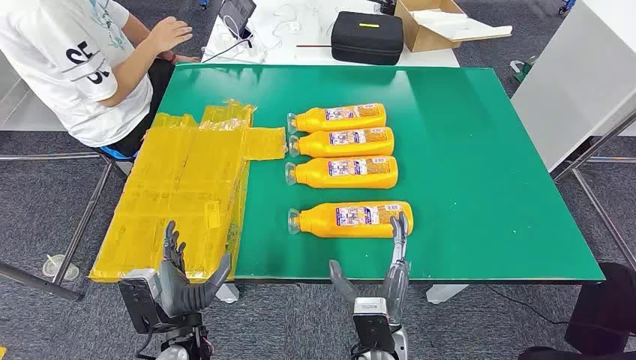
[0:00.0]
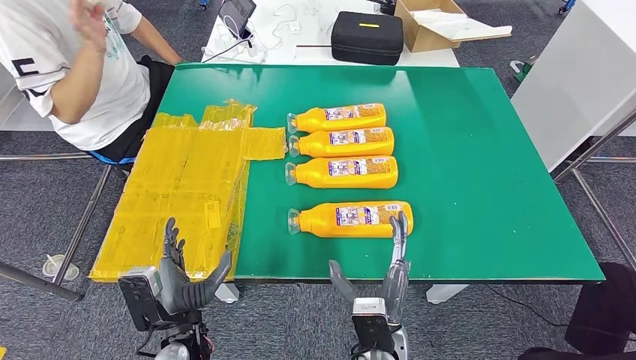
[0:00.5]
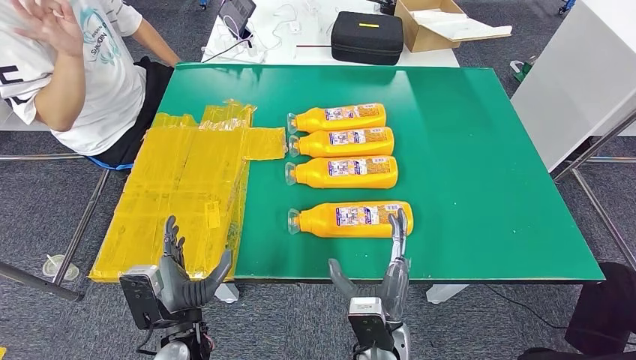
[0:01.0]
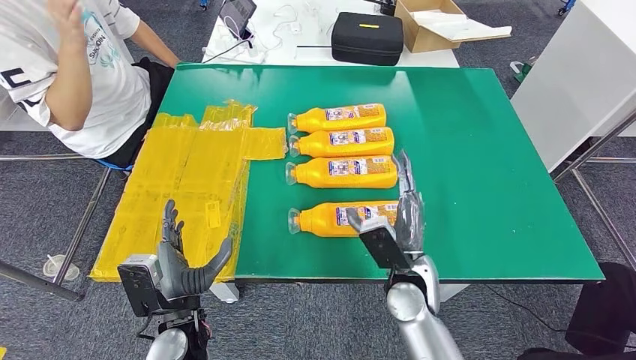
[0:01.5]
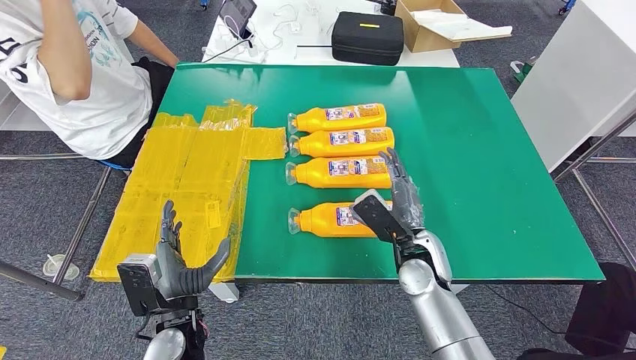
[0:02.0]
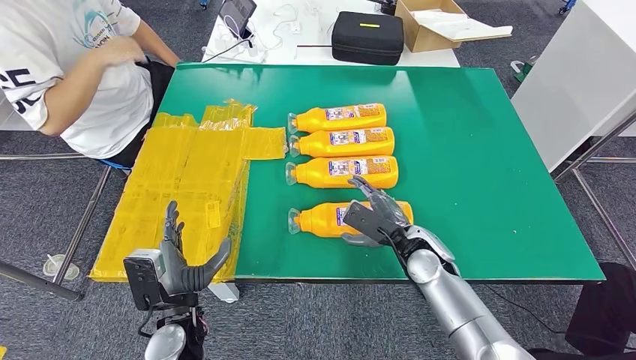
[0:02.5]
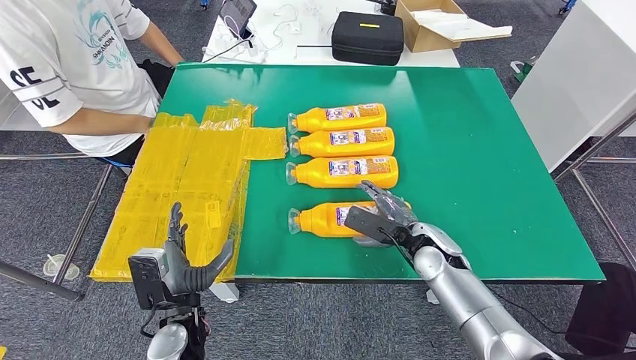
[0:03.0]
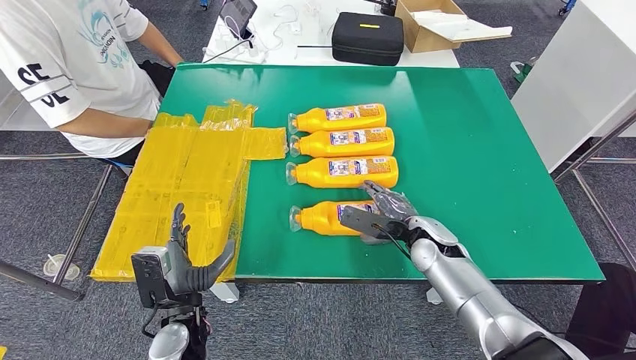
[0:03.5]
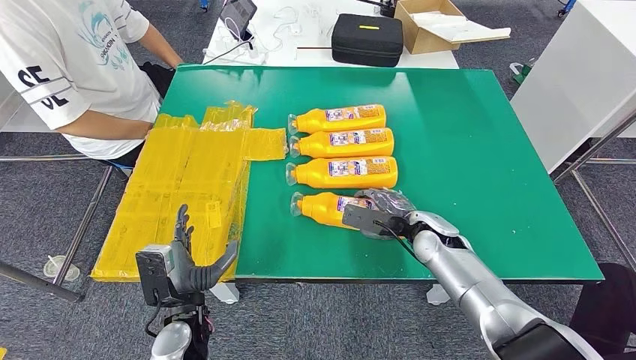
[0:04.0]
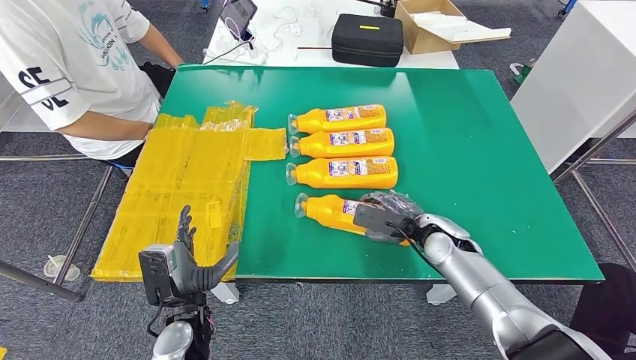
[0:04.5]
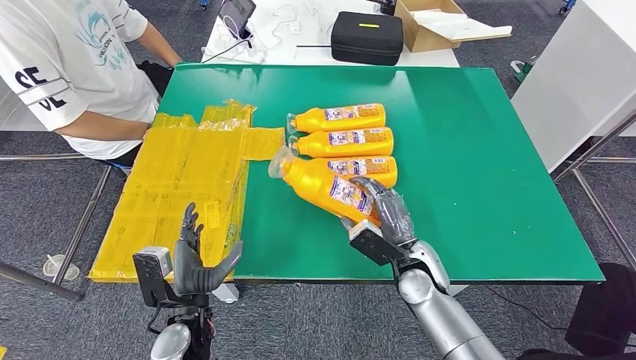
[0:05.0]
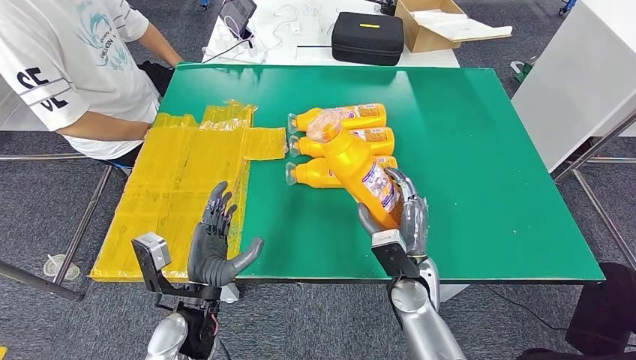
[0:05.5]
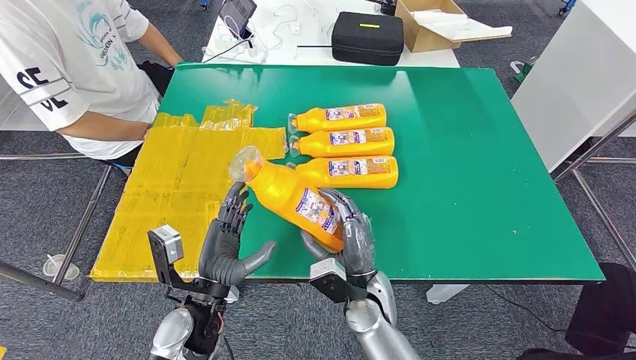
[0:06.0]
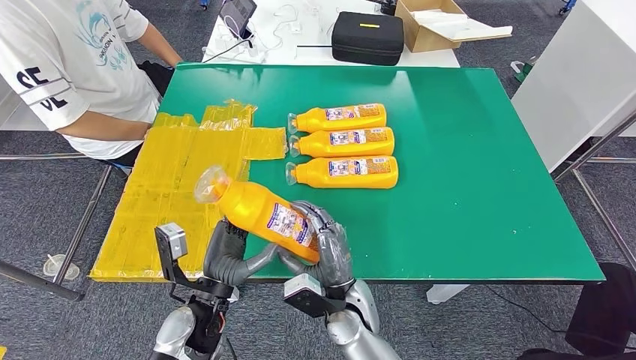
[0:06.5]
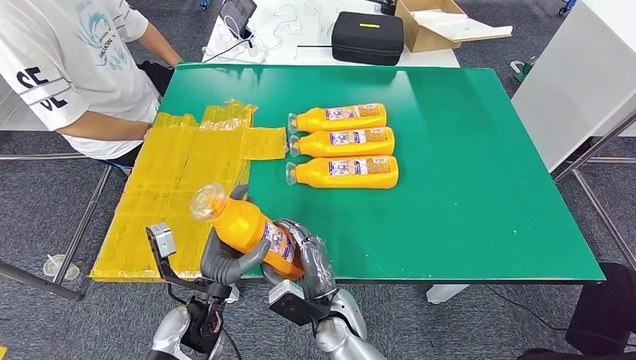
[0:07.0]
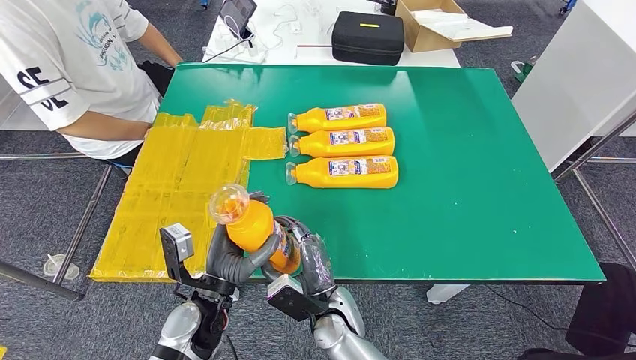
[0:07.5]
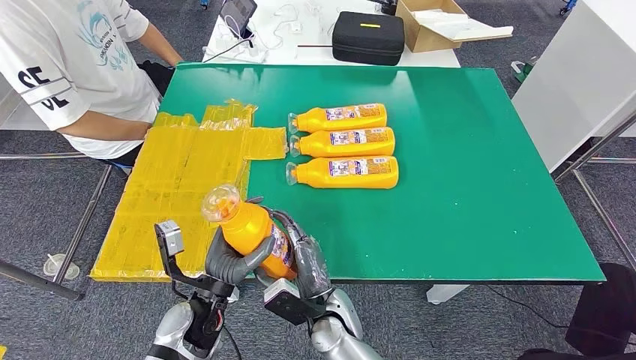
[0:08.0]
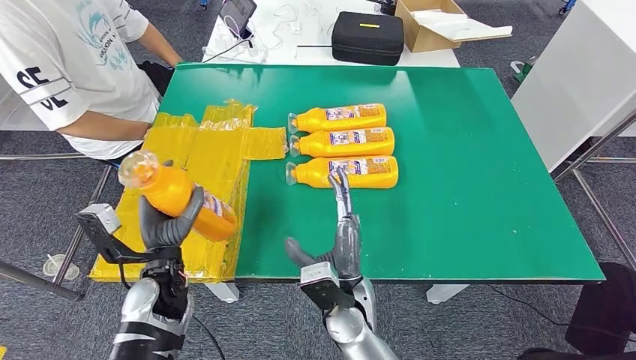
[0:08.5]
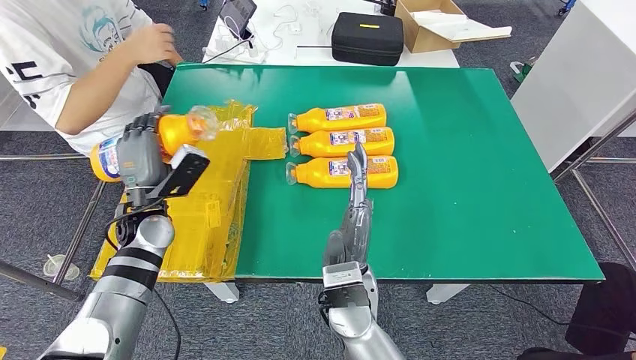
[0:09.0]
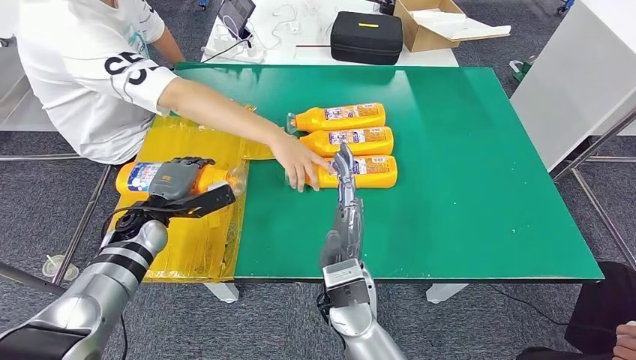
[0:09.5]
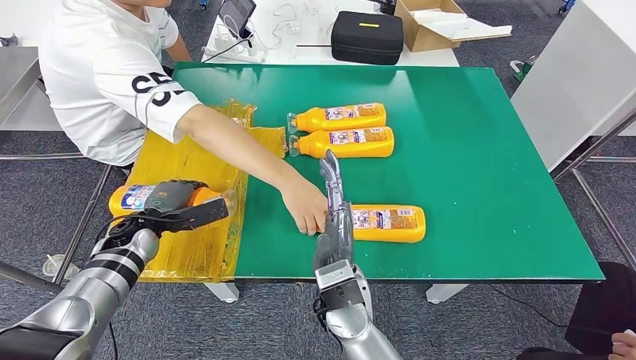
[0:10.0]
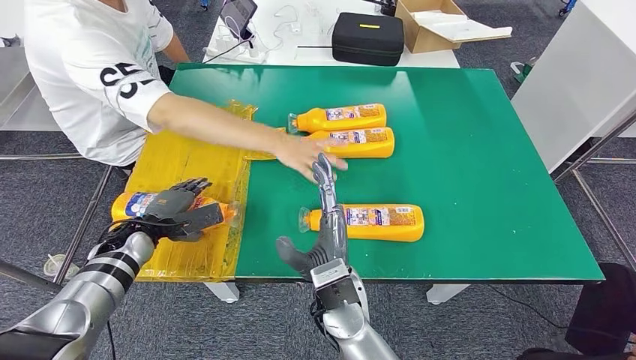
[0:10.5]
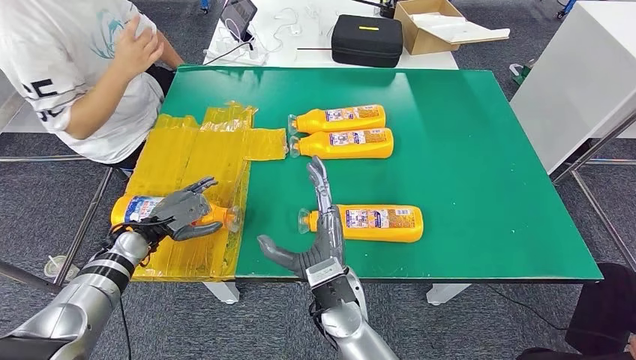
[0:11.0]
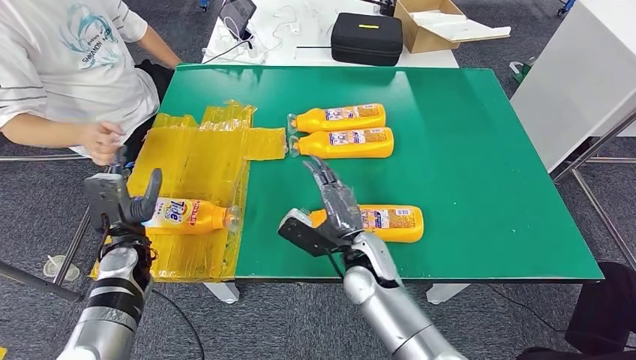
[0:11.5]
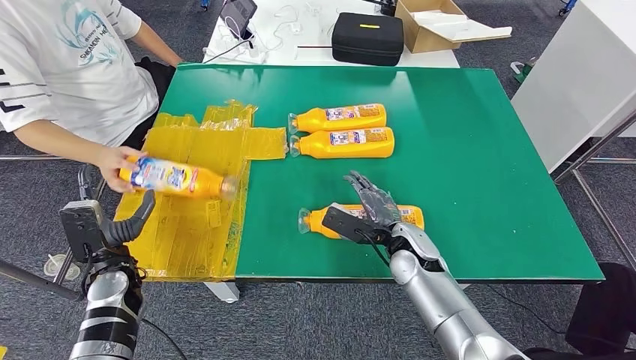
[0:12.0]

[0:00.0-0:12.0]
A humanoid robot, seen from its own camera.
Step, 0:00.0 to 0:07.0: Take the fast-moving consumer goods bottle from the table.
Step, 0:07.5 to 0:10.5: Flip the fast-moving consumer goods bottle to the front side.
0:02.0 to 0:04.0: The right hand is displaced forward and to the right by some 5 cm.
0:04.0 to 0:06.0: The right hand is displaced to the left and backward by some 20 cm; the left hand ends up some 5 cm from where it was.
0:06.0 to 0:08.0: The right hand travels to the left by approximately 5 cm.

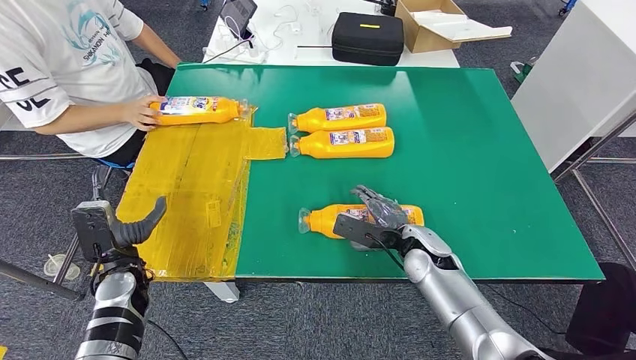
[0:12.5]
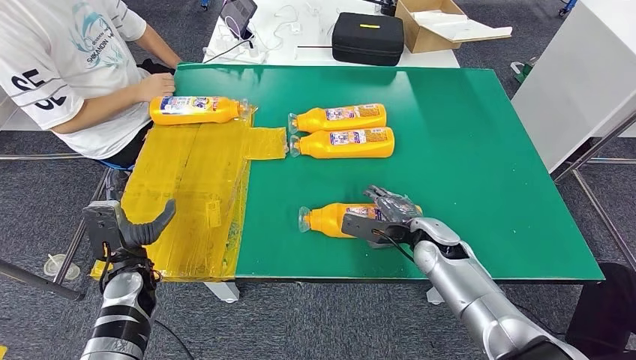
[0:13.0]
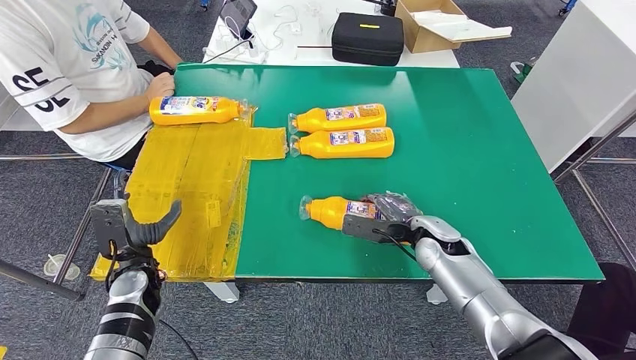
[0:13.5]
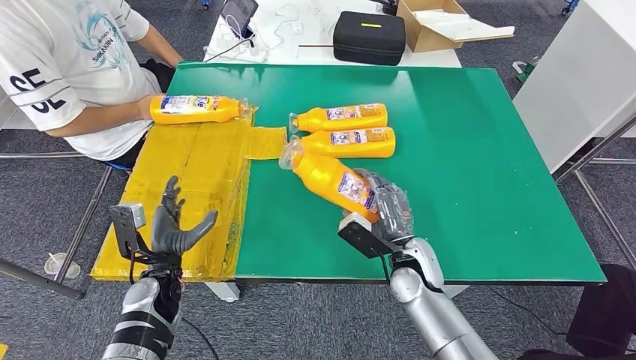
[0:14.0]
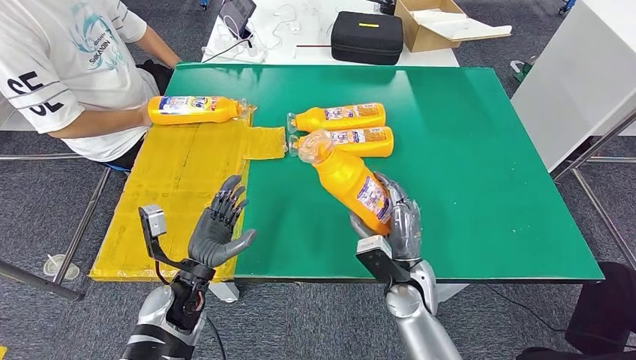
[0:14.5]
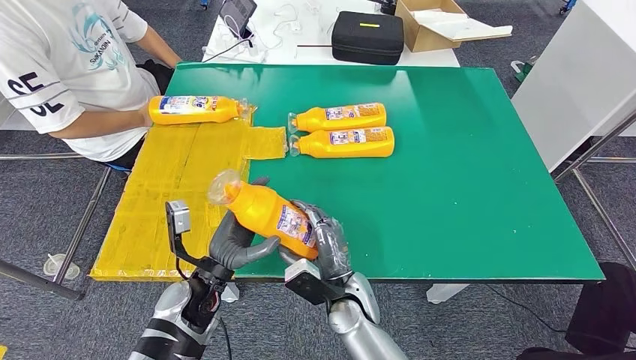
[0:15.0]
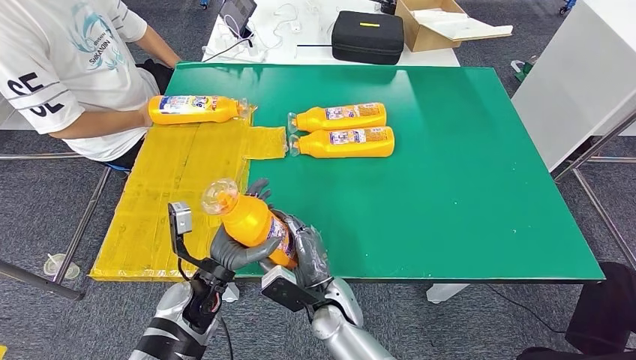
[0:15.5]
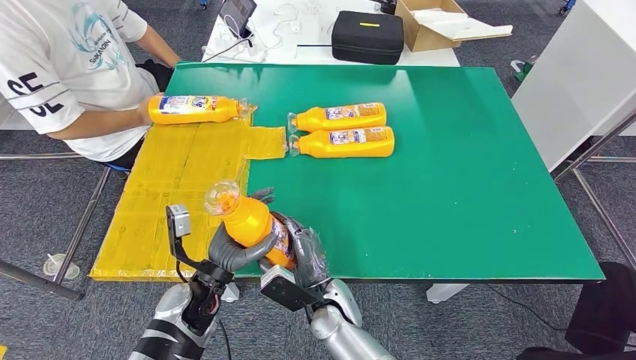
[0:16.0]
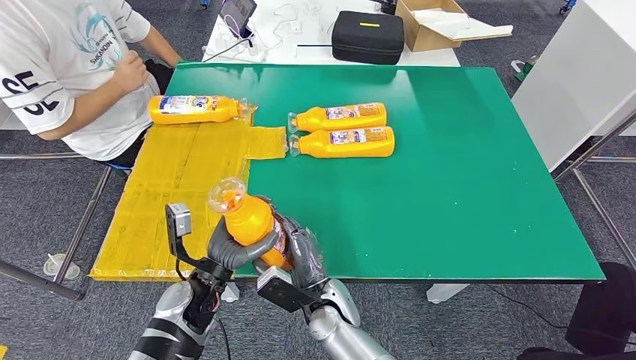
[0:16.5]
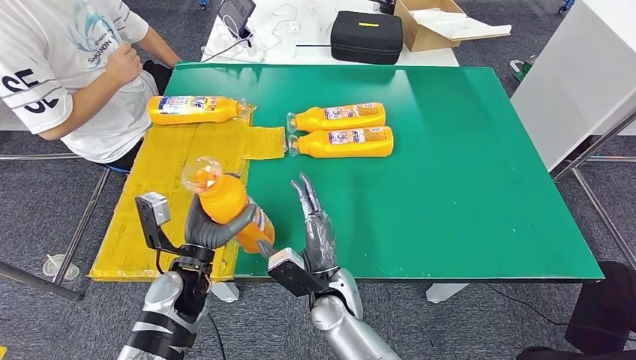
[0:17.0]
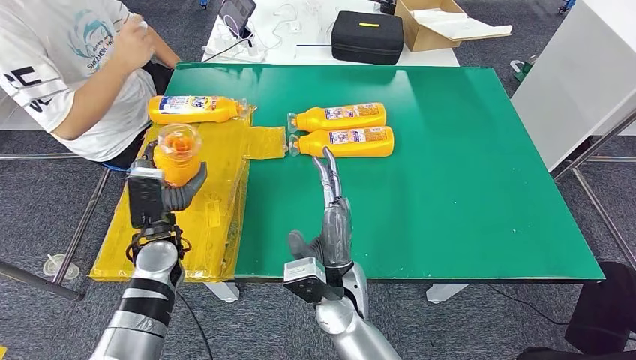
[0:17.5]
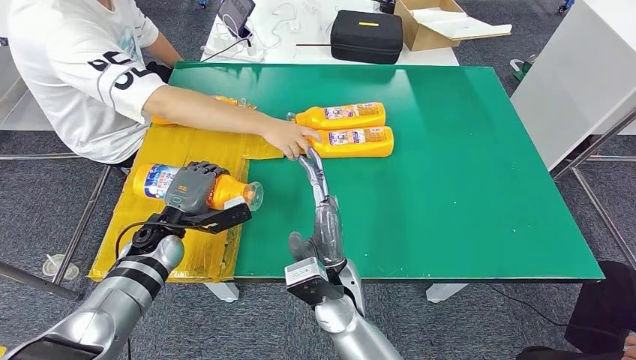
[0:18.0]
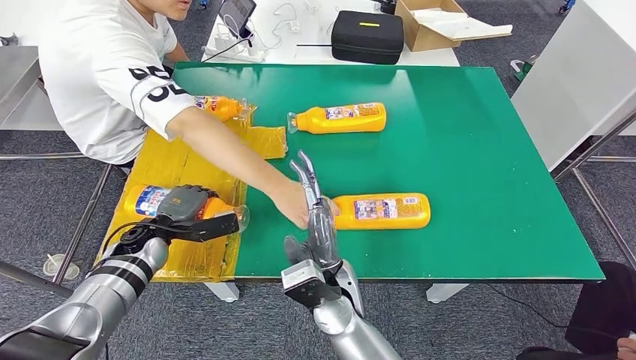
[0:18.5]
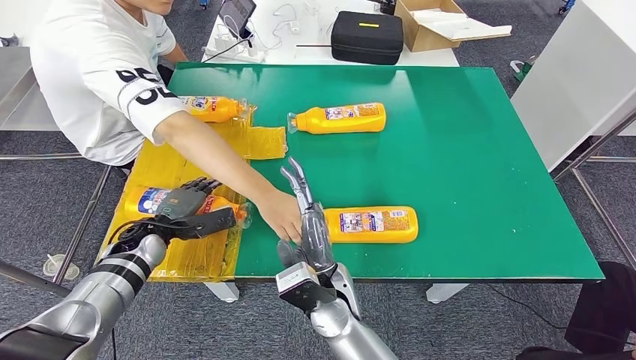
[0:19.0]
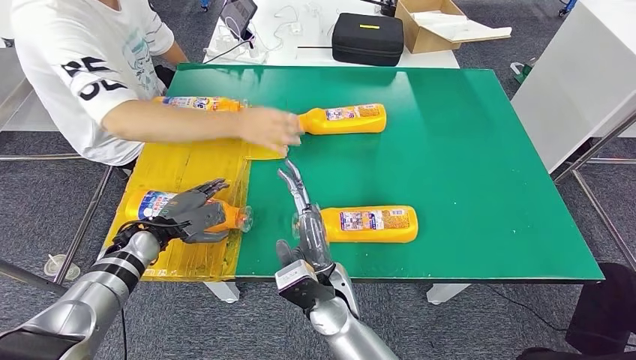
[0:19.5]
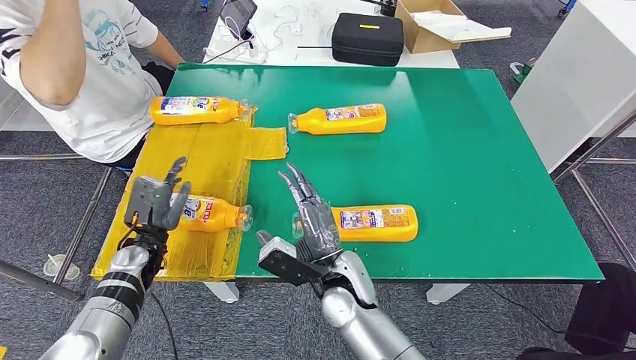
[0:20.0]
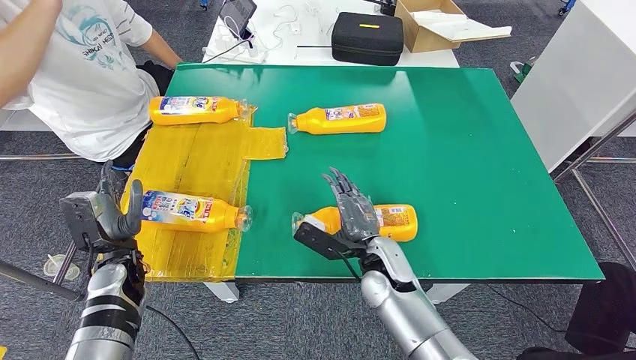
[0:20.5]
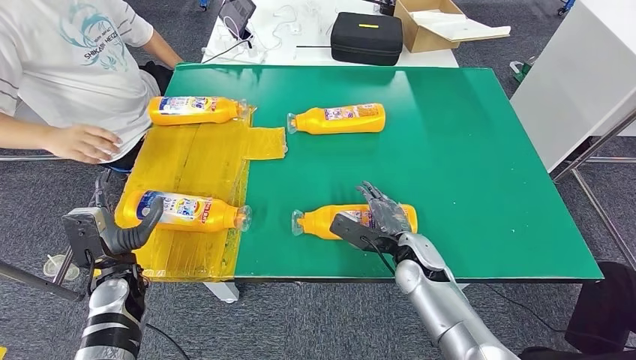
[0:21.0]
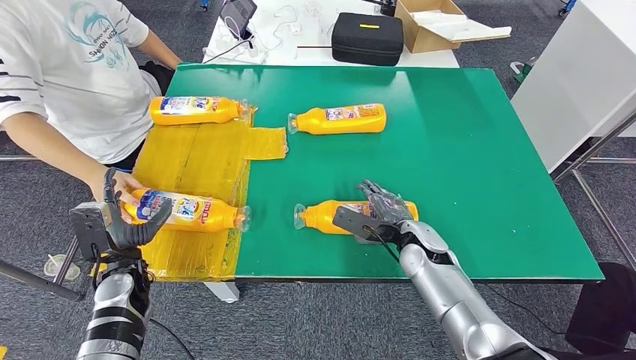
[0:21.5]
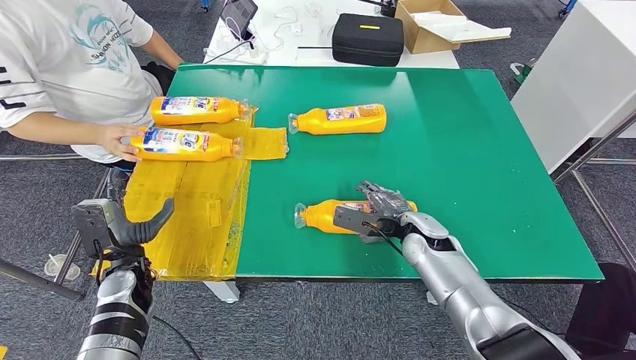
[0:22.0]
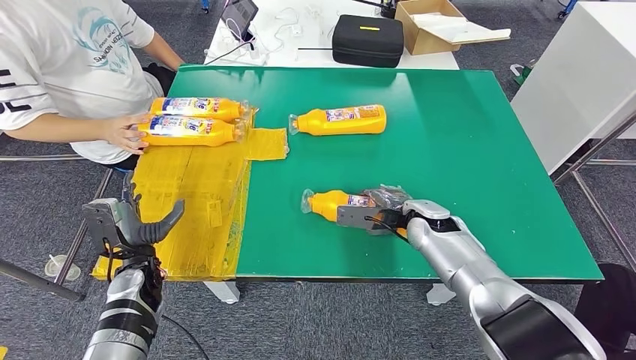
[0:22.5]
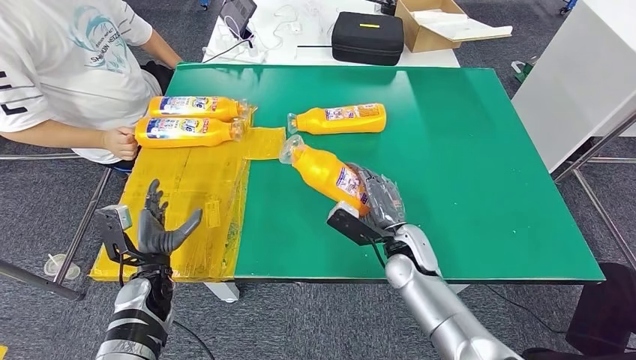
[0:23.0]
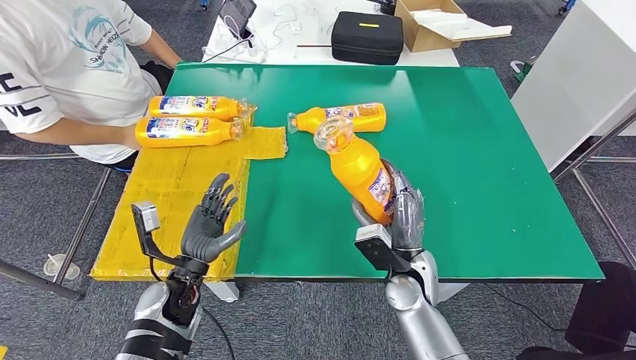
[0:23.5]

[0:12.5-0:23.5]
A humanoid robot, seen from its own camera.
Step, 0:12.5 to 0:15.0: Pick up the fast-moving consumer goods bottle from the table.
Step, 0:16.0 to 0:19.0: Flip the fast-moving consumer goods bottle to the front side.
0:14.5 to 0:16.0: The right hand is displaced to the left by roughly 15 cm.
